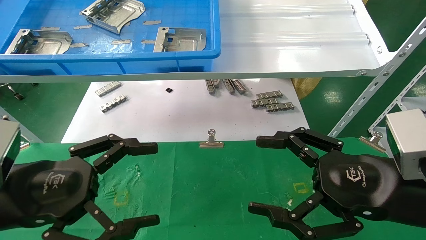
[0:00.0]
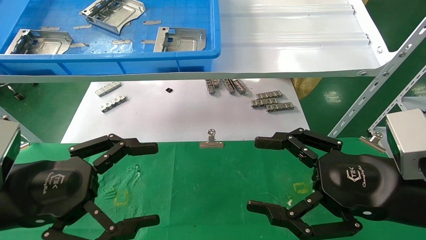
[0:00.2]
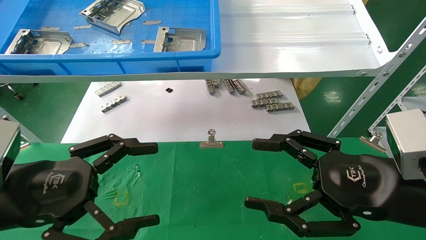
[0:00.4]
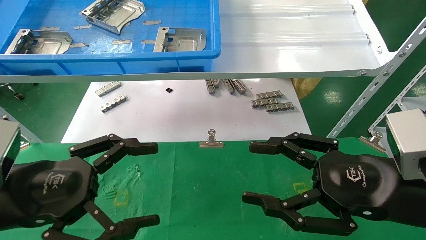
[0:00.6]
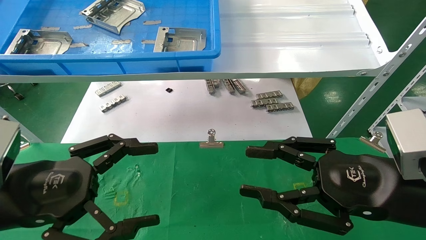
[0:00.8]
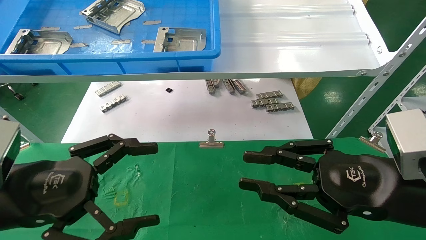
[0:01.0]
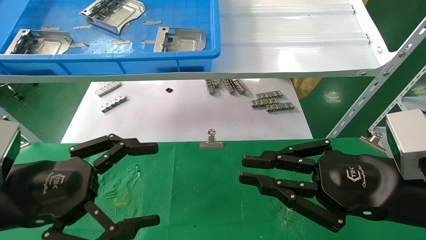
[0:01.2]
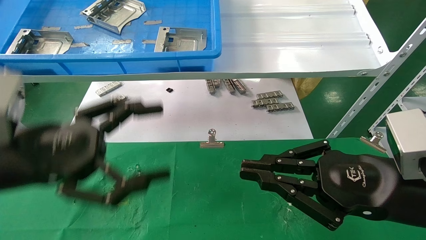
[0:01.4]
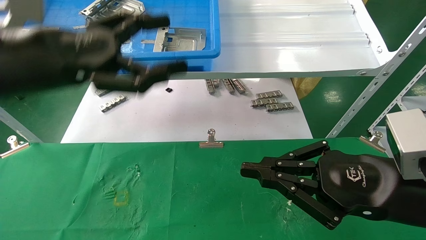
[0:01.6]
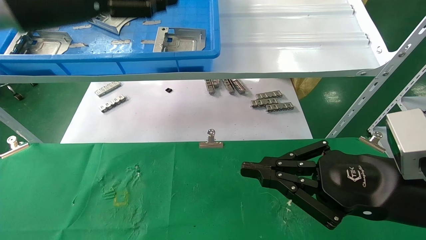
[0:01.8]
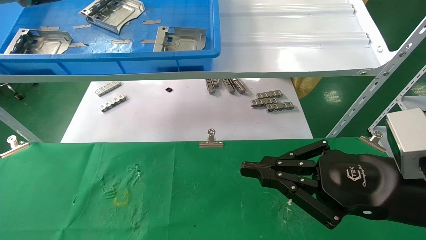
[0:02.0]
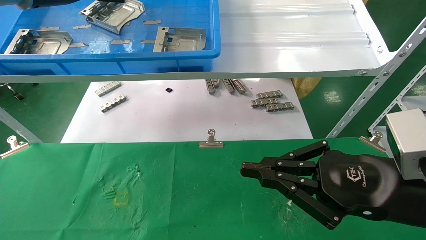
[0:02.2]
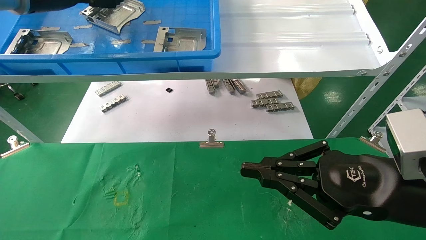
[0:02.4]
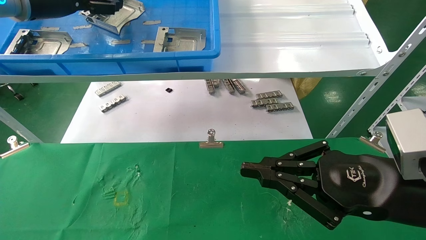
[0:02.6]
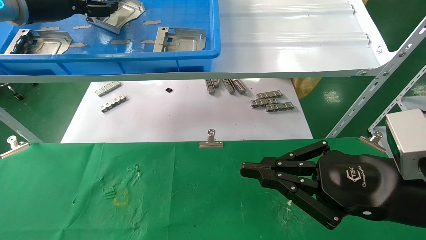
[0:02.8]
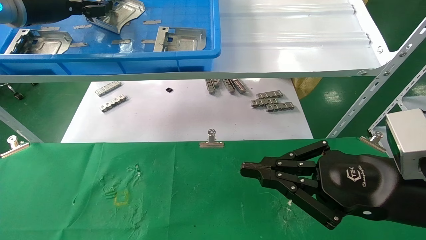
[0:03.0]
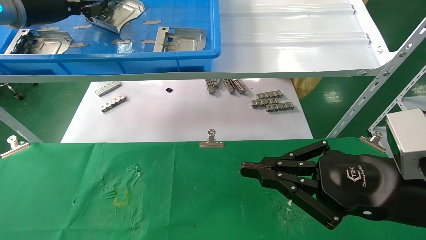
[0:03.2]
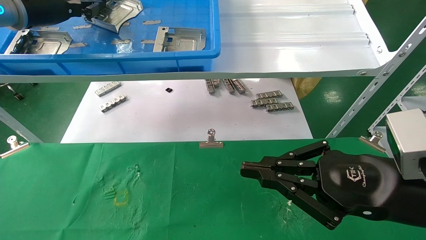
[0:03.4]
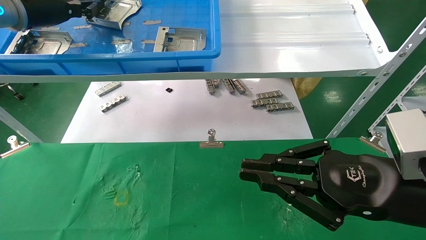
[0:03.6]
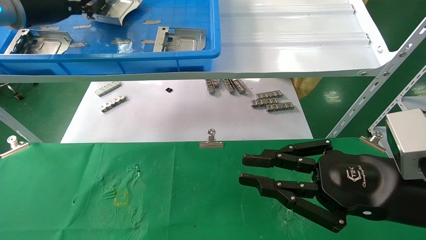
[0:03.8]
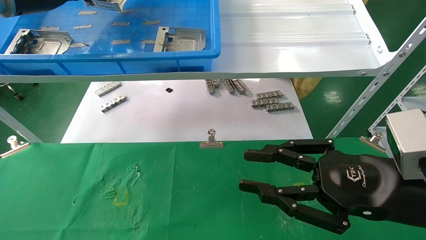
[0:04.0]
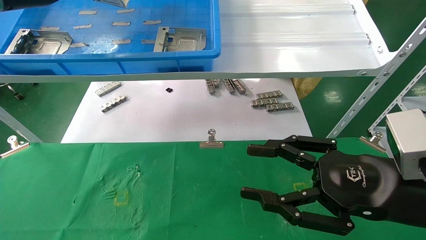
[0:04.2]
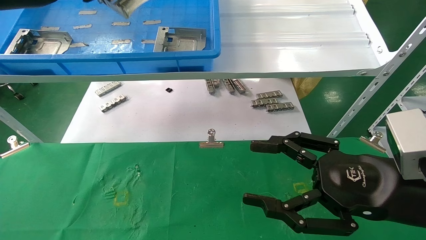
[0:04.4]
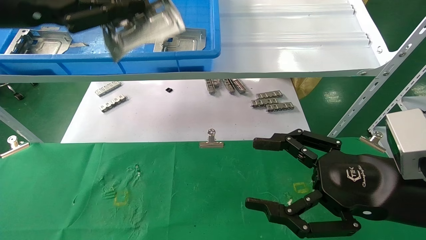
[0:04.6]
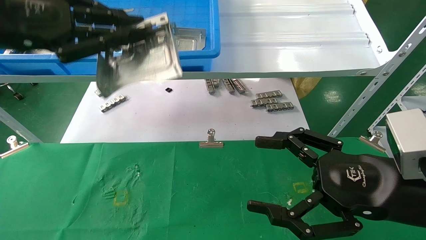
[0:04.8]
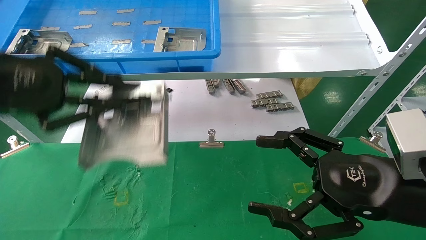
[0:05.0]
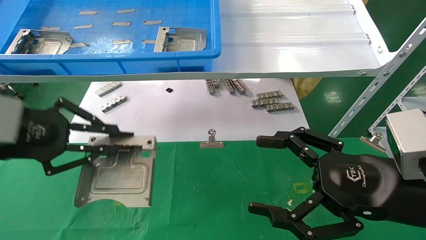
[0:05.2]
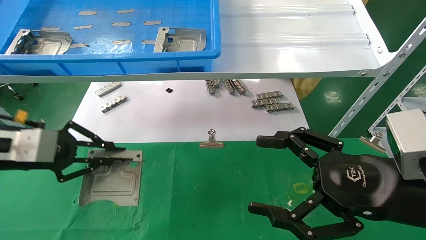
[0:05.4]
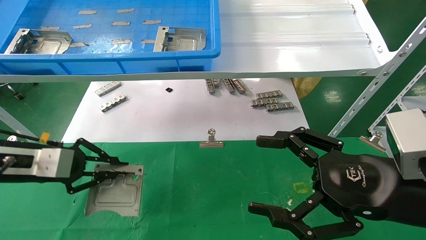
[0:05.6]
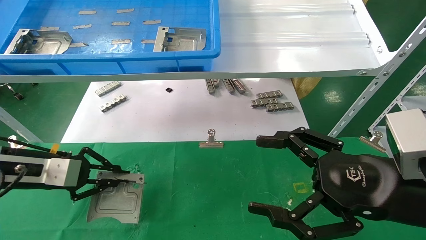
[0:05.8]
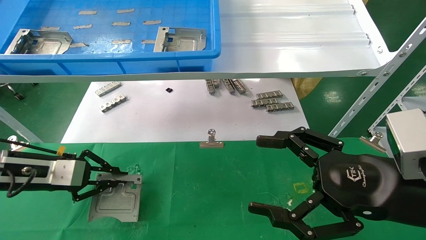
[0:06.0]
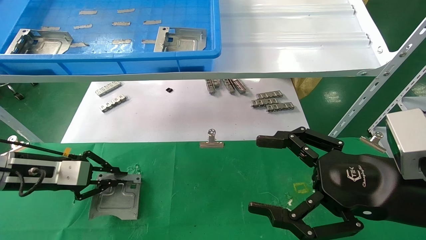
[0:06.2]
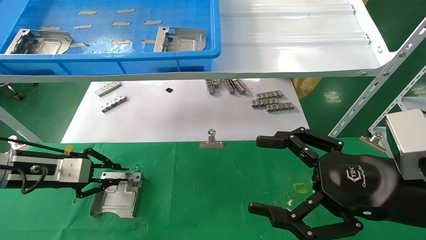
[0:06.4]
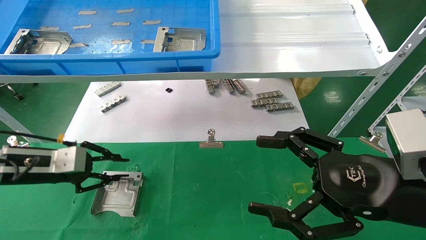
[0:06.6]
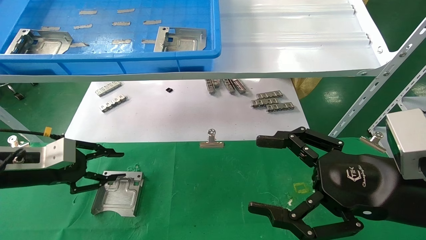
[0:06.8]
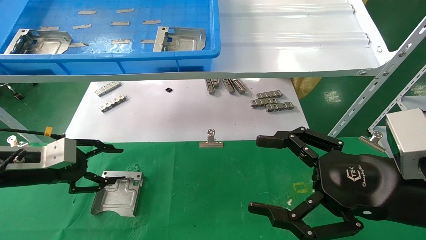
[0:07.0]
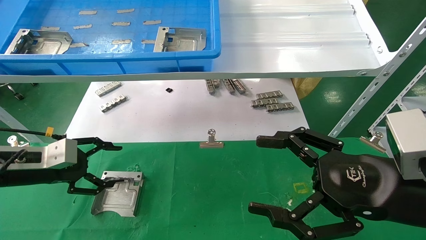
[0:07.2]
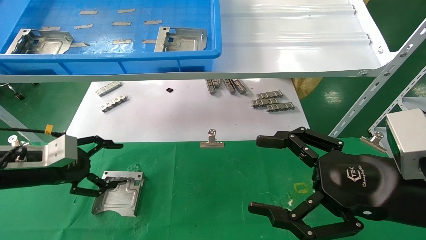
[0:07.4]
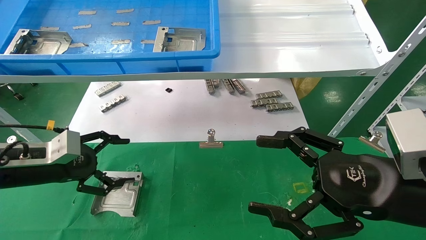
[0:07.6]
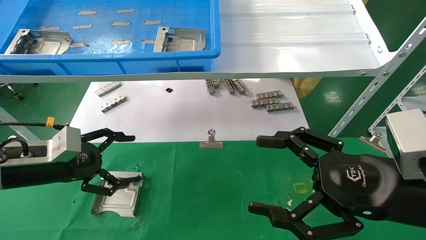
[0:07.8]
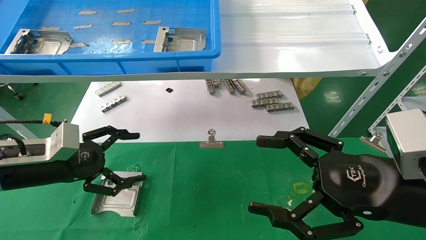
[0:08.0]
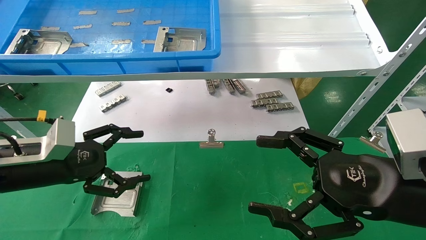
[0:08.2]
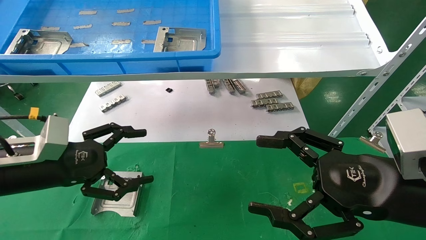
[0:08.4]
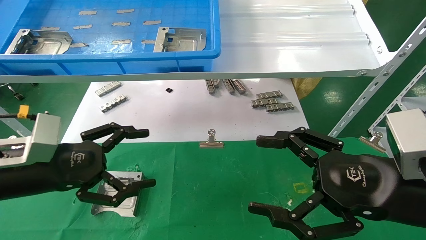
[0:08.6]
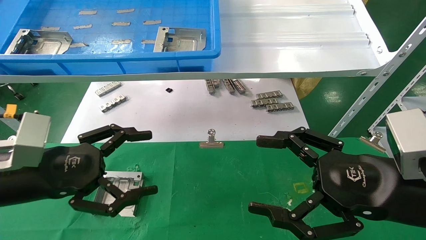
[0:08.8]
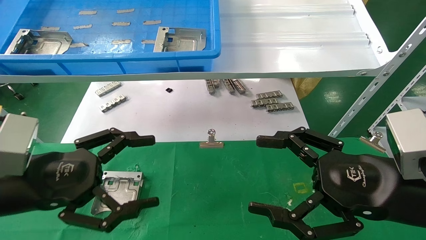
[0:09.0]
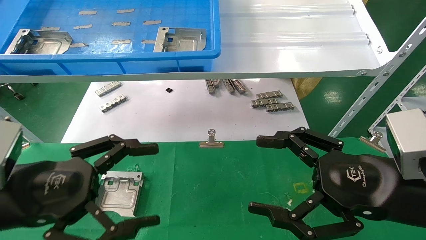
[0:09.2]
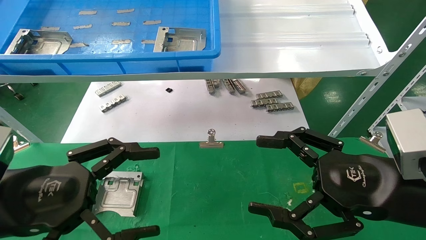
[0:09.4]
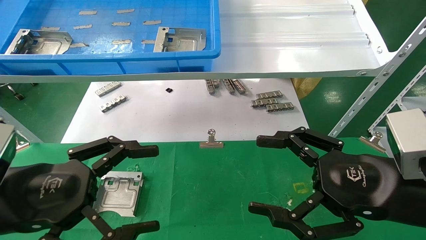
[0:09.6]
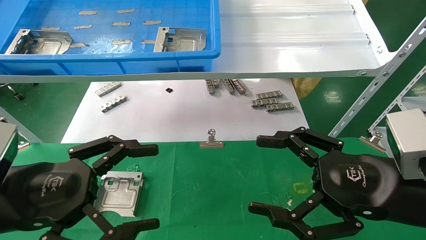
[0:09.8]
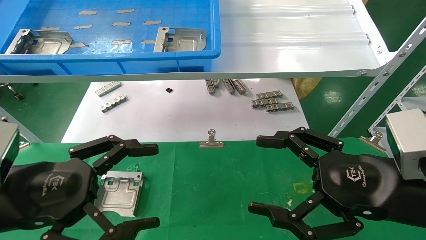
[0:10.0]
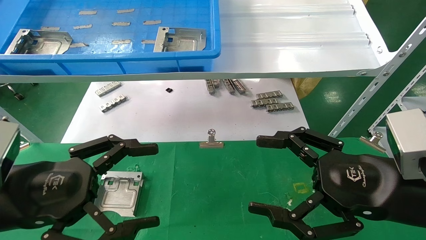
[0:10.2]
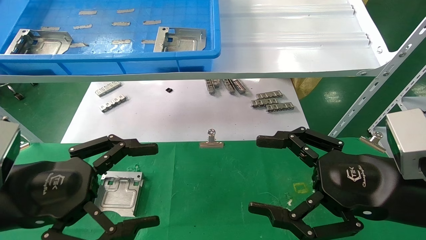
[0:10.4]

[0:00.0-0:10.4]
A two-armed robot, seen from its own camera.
Task of the whole recording: use the mechanical arm to pick up the parts and place them on the table.
Step, 0:01.6 to 0:03.6: Pick up the hard drive bracket from the feeding area.
Step, 0:03.8 to 0:06.4: Place the hard drive bracket into the box.
0:00.0 to 0:01.4: The left gripper travels upward by approximately 10 cm. The right gripper closes up.
0:01.4 to 0:03.0: The left gripper heads forward and upward, covering some 25 cm, and closes up.
0:03.0 to 0:04.4: The left gripper shifts about 10 cm backward, and closes. The right gripper opens up.
0:04.4 to 0:06.0: The left gripper goes approximately 30 cm downward. The right gripper opens up.
0:06.0 to 0:07.4: The left gripper opens its fingers.
0:07.4 to 0:09.0: The left gripper travels backward and to the right by about 15 cm.
0:09.0 to 0:10.4: The grippers move only a little.

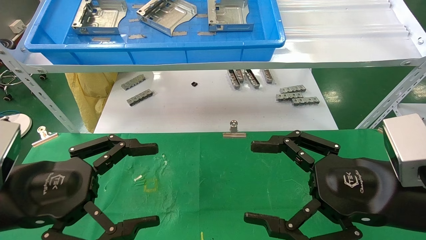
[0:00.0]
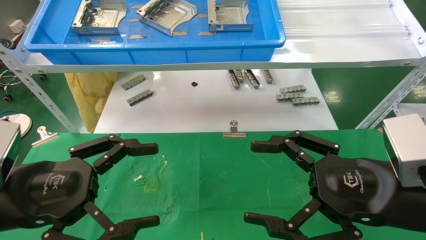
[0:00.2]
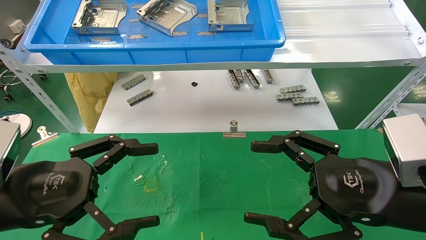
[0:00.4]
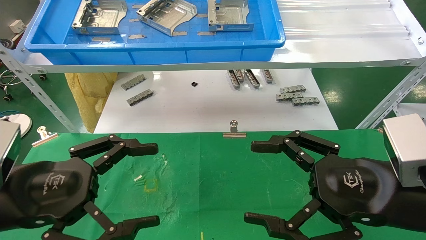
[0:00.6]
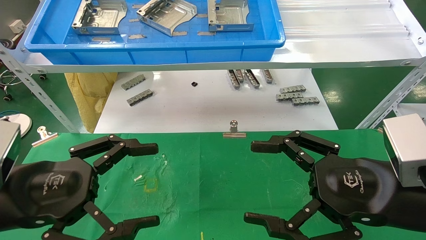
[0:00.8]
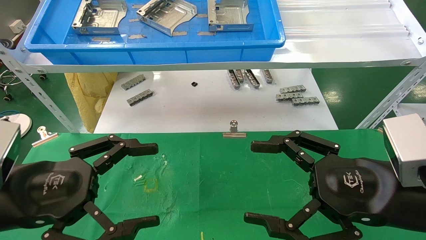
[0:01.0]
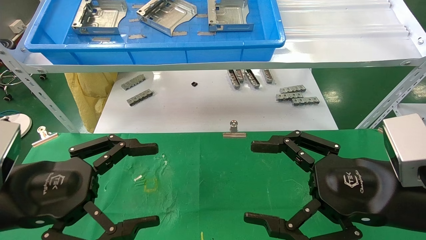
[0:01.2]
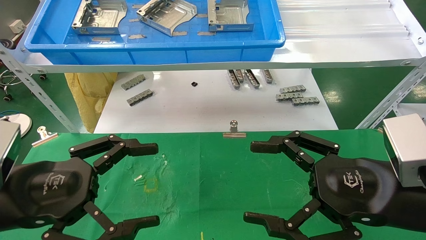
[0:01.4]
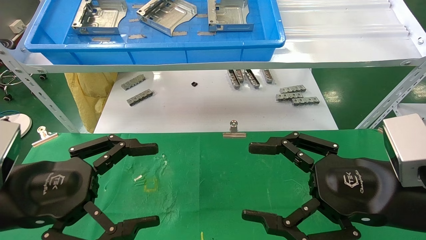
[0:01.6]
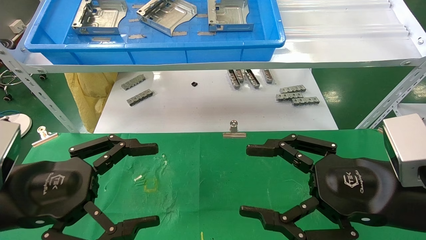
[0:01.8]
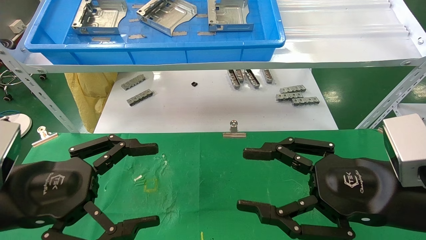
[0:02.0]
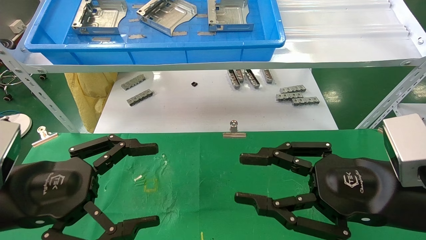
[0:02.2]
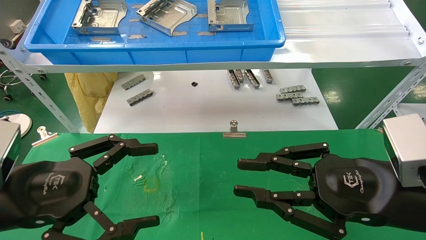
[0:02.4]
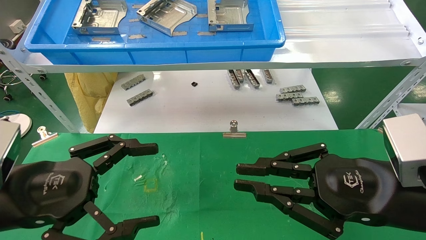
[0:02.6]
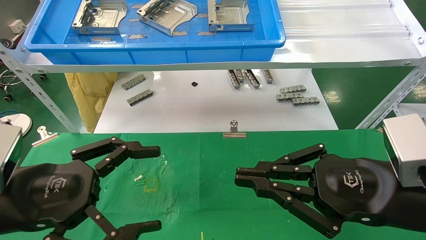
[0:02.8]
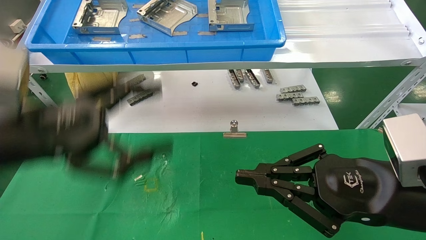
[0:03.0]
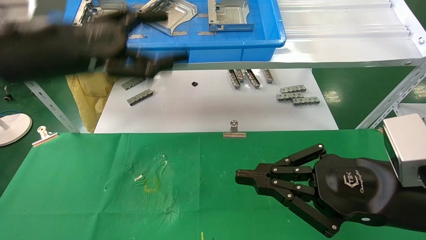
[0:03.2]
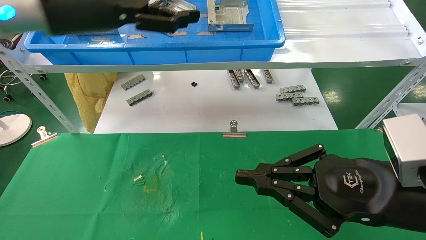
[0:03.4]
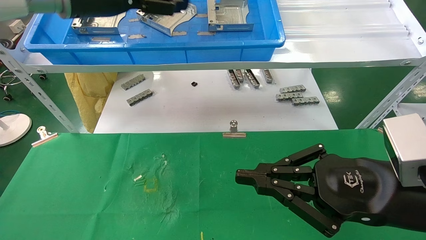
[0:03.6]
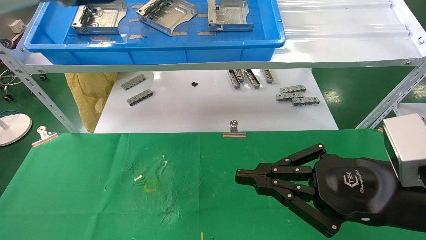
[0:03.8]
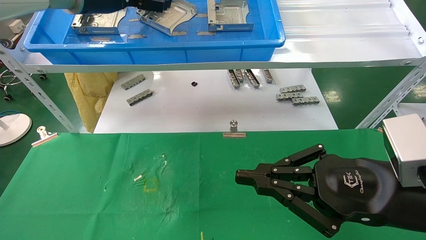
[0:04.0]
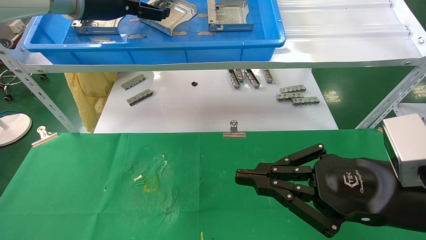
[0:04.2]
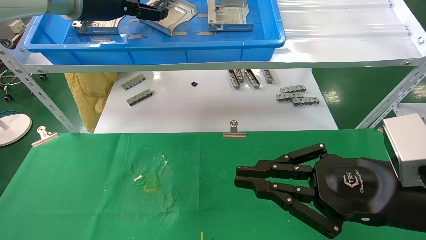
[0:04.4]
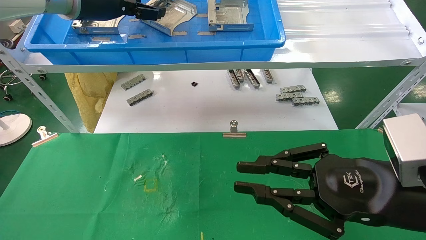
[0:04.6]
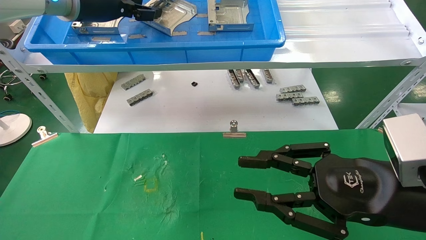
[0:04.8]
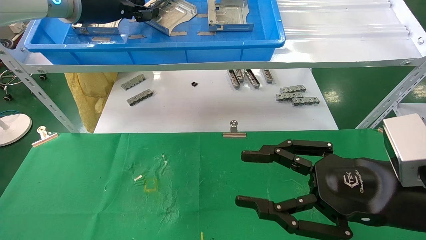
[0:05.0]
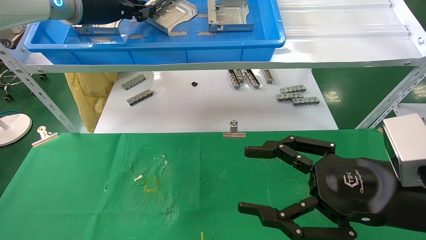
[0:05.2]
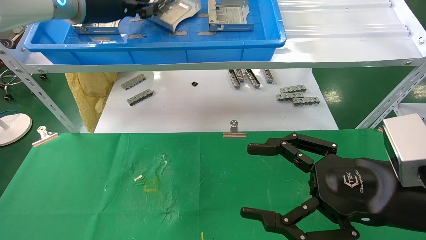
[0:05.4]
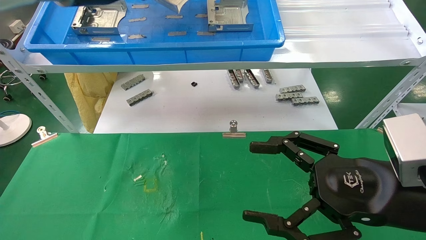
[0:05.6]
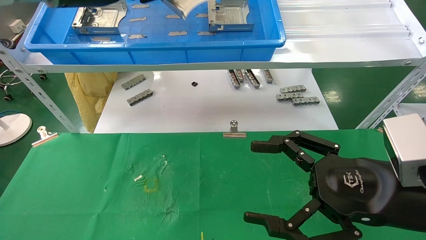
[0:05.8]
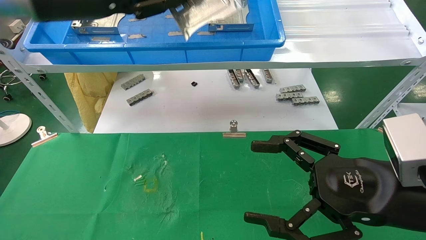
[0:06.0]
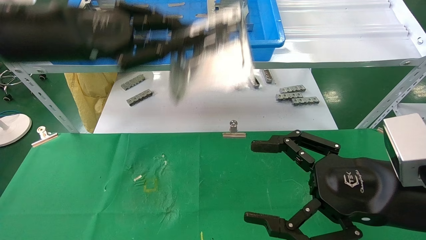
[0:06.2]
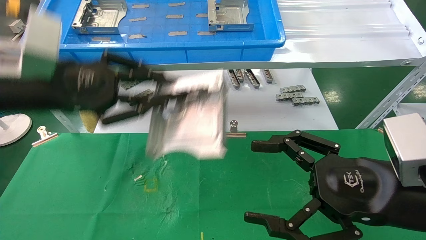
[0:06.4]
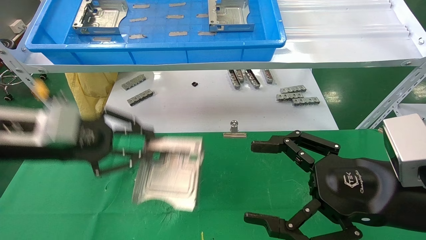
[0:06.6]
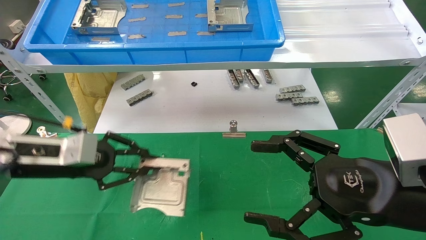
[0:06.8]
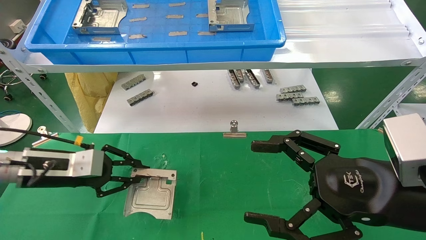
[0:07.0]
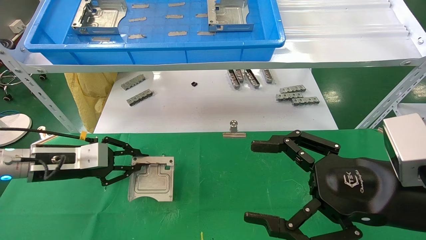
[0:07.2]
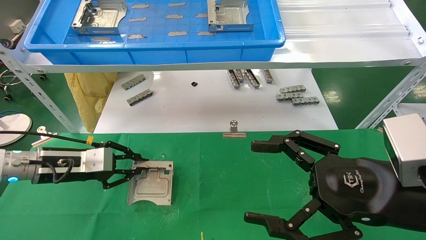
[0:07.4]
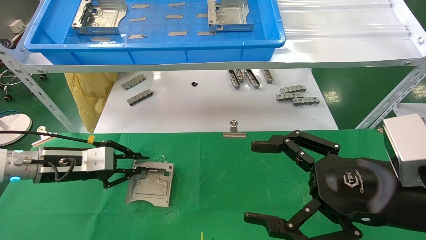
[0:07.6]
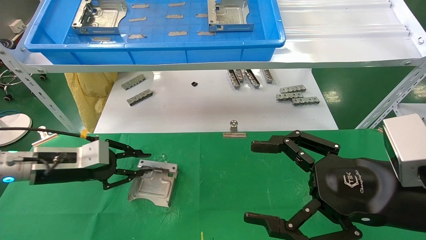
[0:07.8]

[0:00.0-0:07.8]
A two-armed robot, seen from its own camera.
Task of the whole recording: use the mechanical arm to pick up the parts and place them on the table.
Step, 0:03.2 to 0:05.2: Pick up the hard drive bracket from the feeding area.
Step, 0:05.4 to 0:07.4: Place the hard drive bracket into the box.
0:00.0 to 0:01.6: Both grippers stay about where they are.
0:01.6 to 0:03.2: The left gripper shifts about 20 cm upward and forward. Meanwhile the right gripper closes its fingers.
0:03.2 to 0:04.6: The left gripper travels forward and upward by approximately 15 cm.
0:04.6 to 0:06.2: The right gripper opens up; the left gripper is displaced backward and downward by roughly 15 cm, and closes.
0:06.2 to 0:07.8: The left gripper goes some 25 cm downward.
